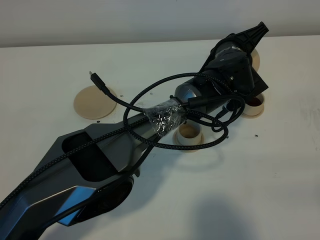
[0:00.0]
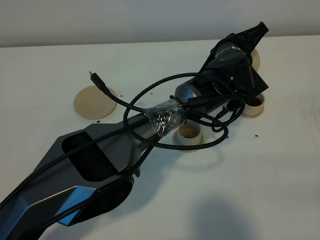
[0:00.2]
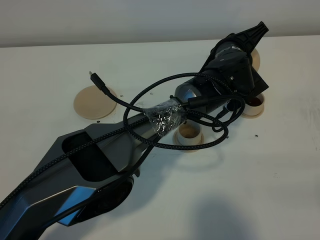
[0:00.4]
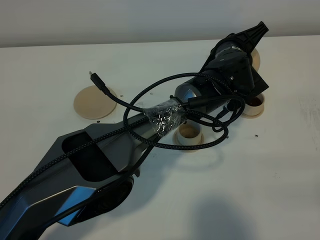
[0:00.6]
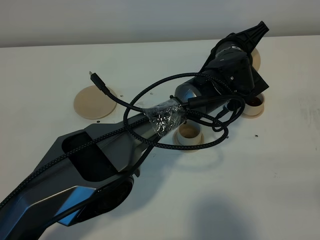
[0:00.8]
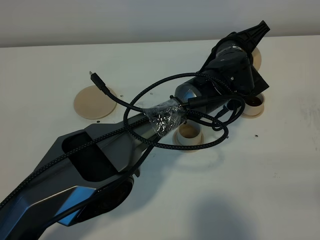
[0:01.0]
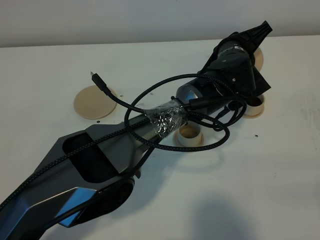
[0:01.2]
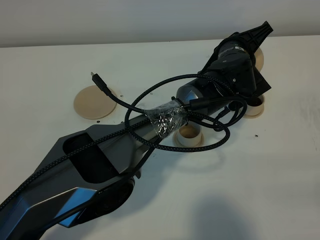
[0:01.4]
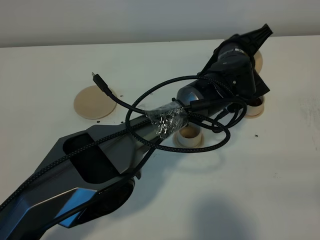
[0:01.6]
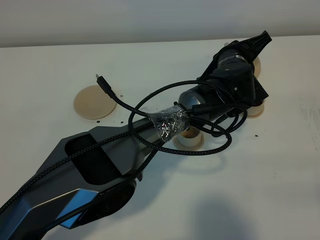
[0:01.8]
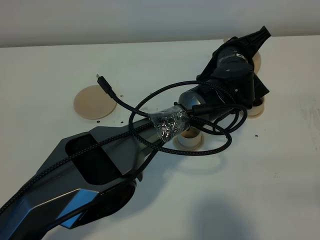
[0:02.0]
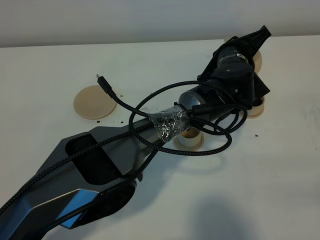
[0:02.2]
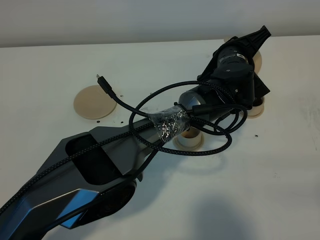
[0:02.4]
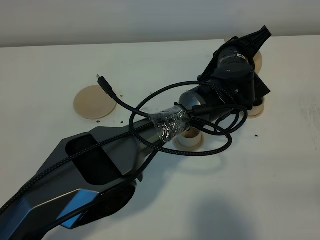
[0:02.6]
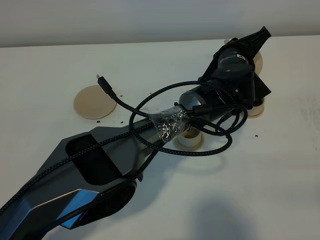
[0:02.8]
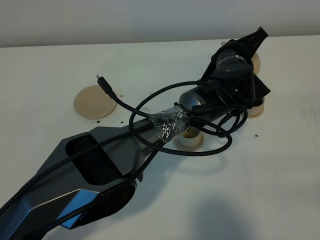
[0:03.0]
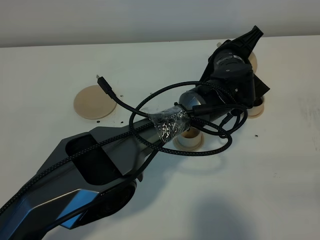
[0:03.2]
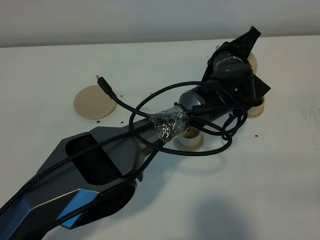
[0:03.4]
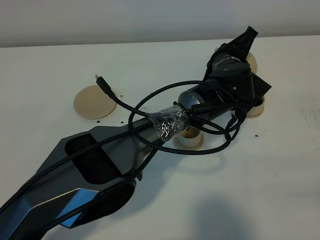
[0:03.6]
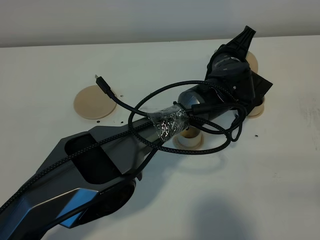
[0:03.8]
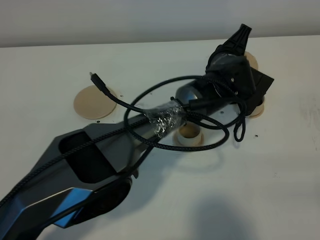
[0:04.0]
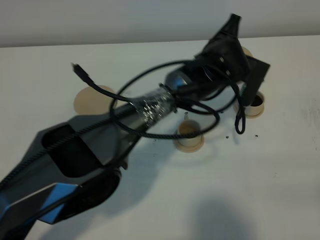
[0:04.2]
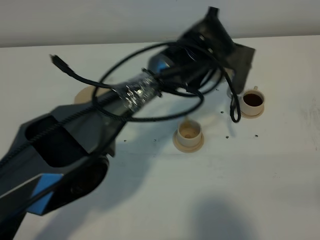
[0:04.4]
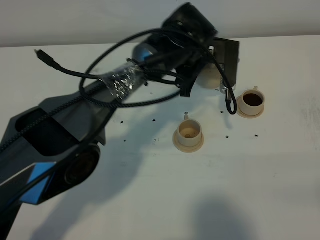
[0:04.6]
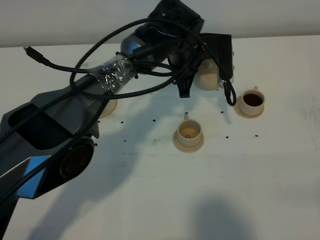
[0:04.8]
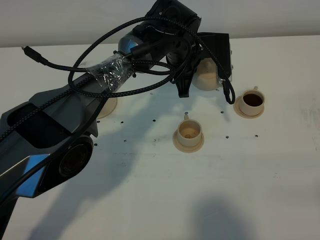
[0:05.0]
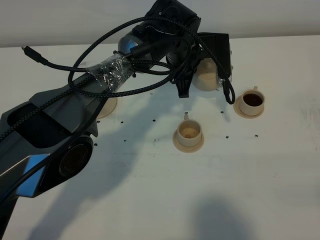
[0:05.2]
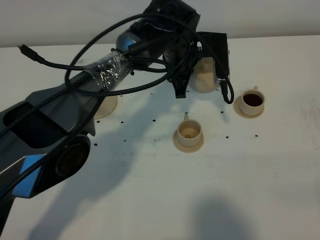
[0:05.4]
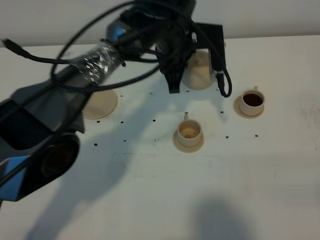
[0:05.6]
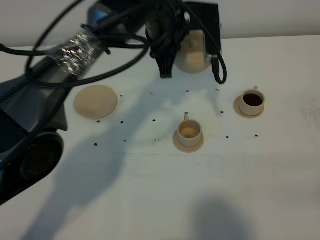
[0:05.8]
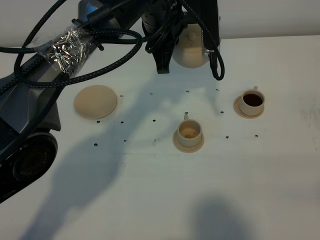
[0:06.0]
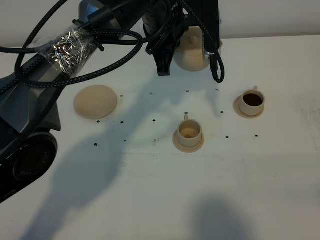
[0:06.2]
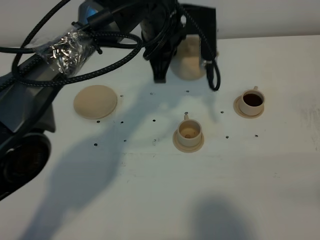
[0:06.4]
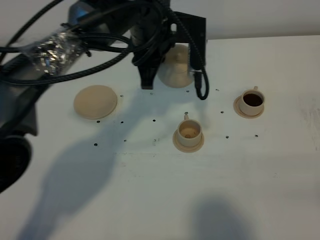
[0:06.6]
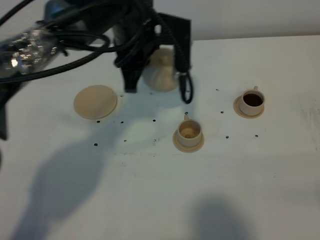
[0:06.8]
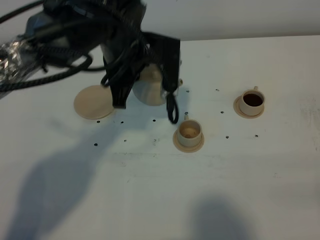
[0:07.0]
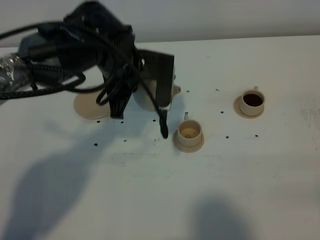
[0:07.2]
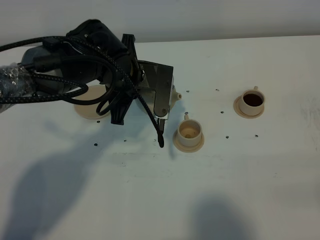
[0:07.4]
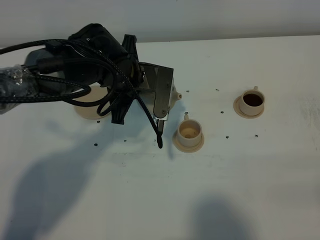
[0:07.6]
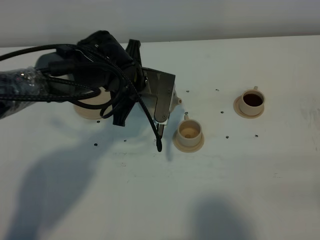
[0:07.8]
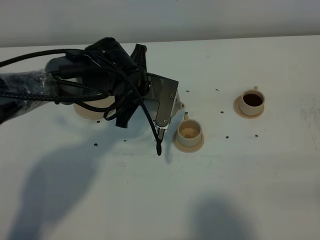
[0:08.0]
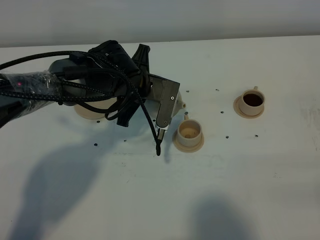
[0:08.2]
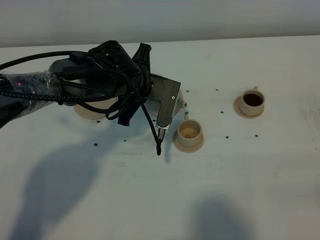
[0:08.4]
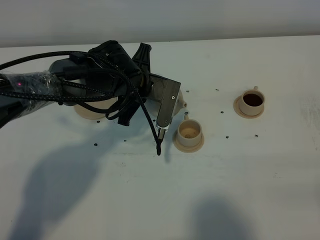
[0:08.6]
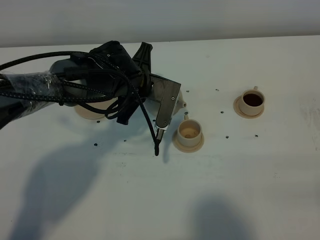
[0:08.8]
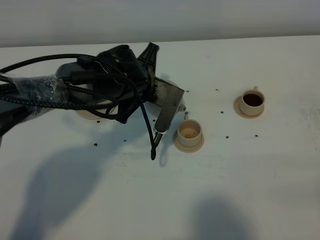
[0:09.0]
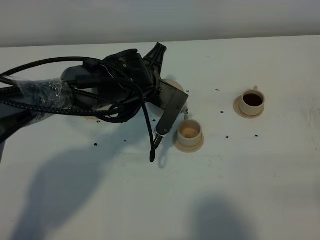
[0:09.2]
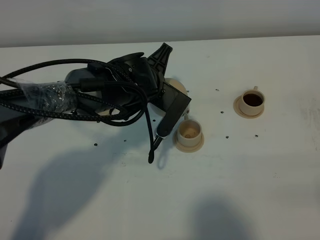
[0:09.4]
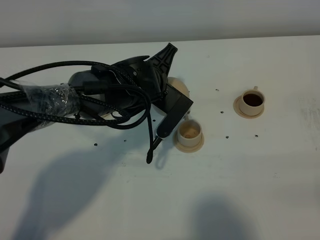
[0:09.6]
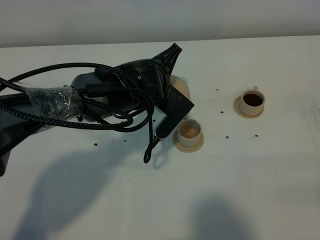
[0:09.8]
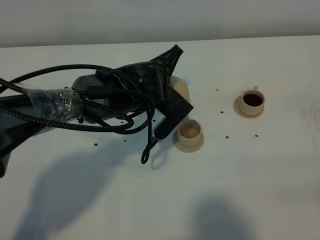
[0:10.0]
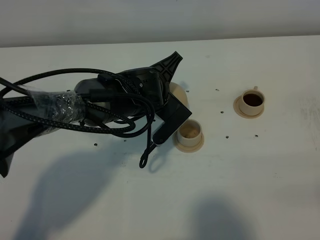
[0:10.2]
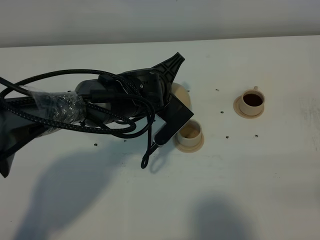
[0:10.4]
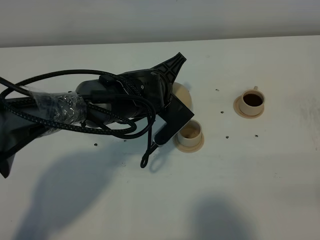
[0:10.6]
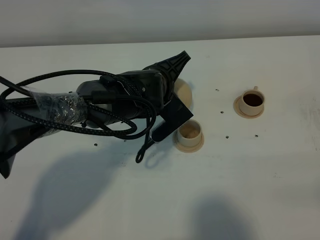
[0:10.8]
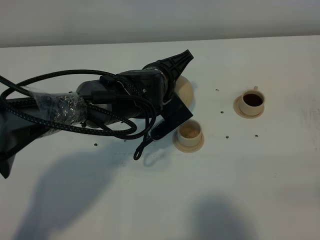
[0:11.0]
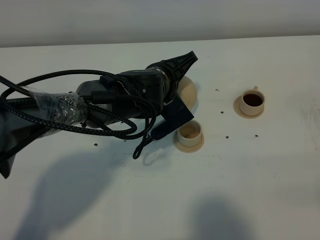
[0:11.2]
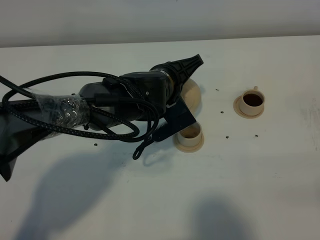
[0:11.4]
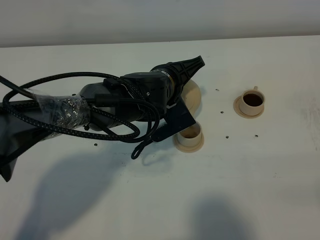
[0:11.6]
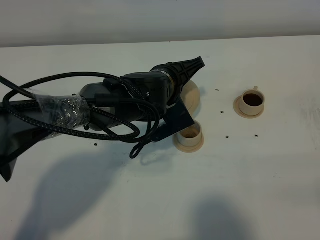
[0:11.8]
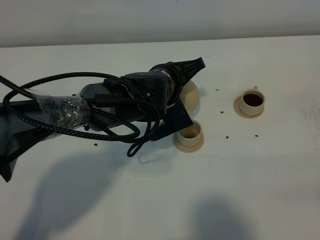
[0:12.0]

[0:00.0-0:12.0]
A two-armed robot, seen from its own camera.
Task of the whole recording: grasp the brown teapot and pour the tea into the two brown teacups one by one, put the brown teapot back in its original place.
Step, 0:00.0 to 0:03.4: Pour tea into the teacup with the left gripper.
0:00.0 to 0:01.6: Both grippers stay about where they are.
0:01.6 to 0:03.0: There are only small adjustments of the grippers.
0:03.0 to 0:04.4: The left gripper moves to the left, about 5 cm.
0:04.4 to 0:06.0: The left gripper goes approximately 10 cm upward and to the left.
0:06.0 to 0:07.6: The left gripper moves downward, to the left and backward, approximately 10 cm.
0:07.6 to 0:09.0: The grippers stay close to where they were, moving slightly.

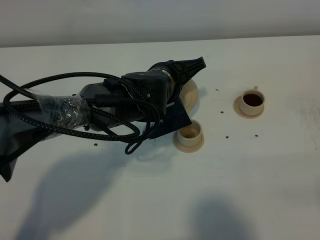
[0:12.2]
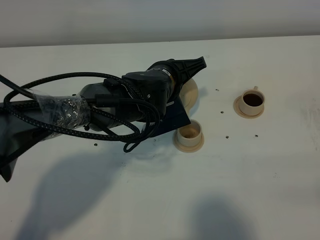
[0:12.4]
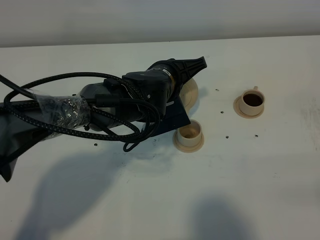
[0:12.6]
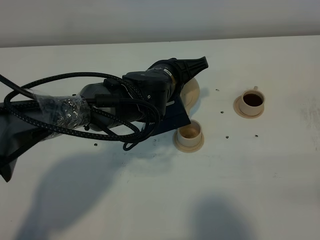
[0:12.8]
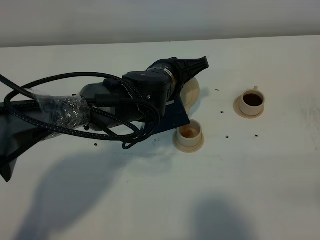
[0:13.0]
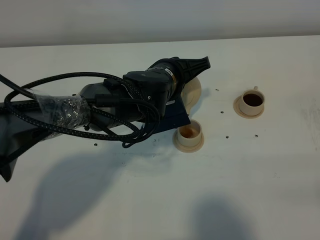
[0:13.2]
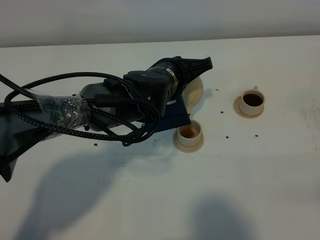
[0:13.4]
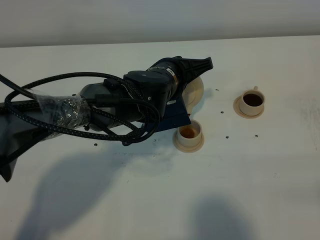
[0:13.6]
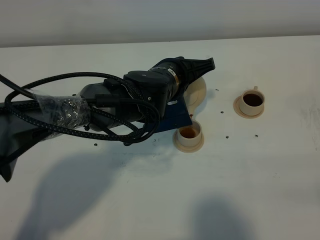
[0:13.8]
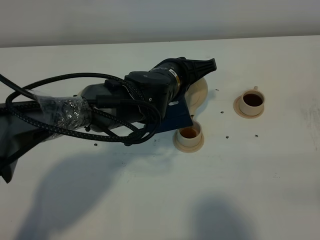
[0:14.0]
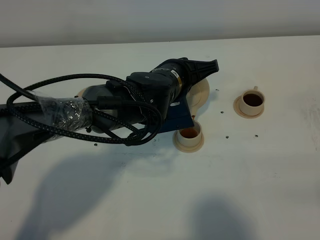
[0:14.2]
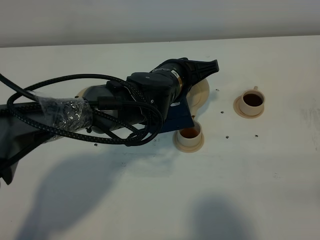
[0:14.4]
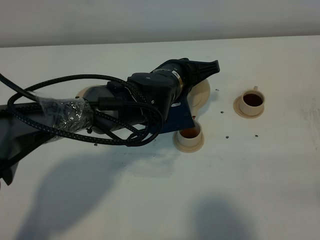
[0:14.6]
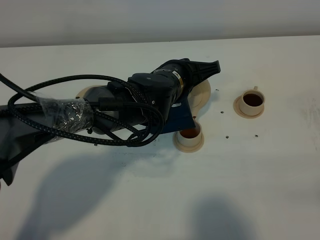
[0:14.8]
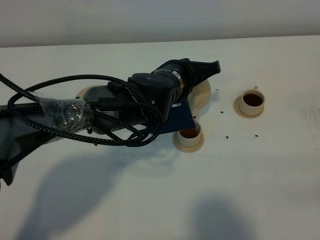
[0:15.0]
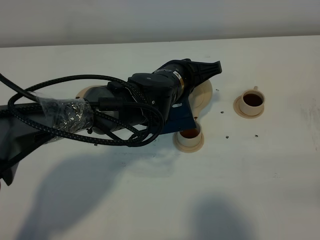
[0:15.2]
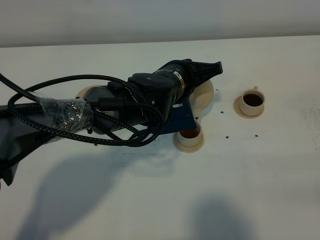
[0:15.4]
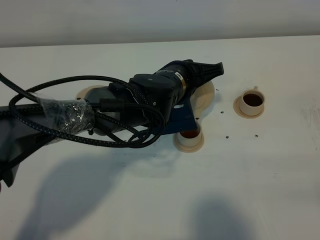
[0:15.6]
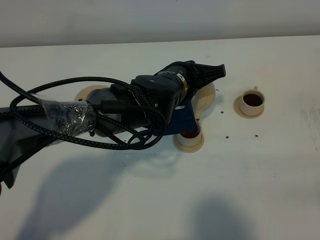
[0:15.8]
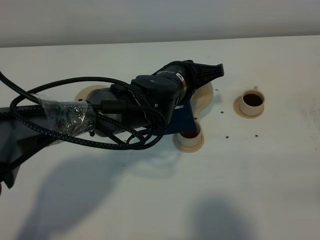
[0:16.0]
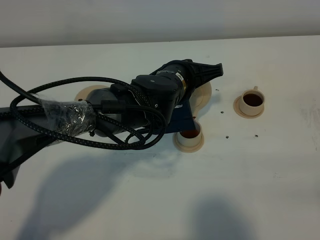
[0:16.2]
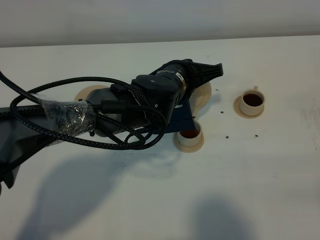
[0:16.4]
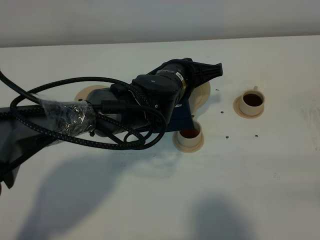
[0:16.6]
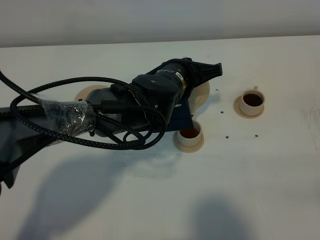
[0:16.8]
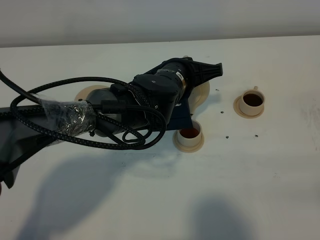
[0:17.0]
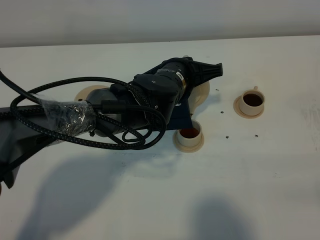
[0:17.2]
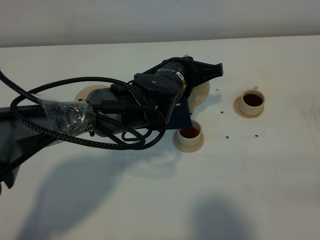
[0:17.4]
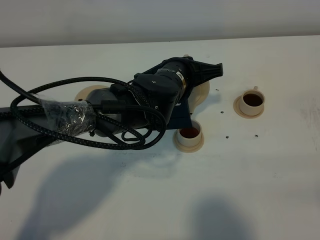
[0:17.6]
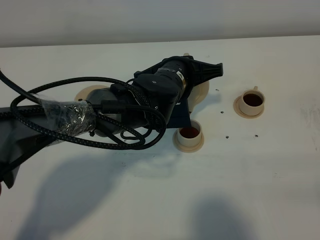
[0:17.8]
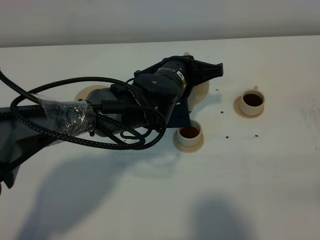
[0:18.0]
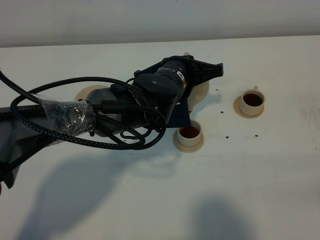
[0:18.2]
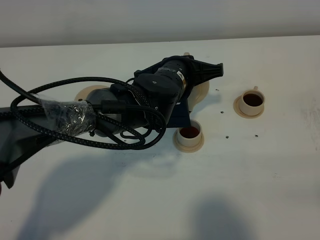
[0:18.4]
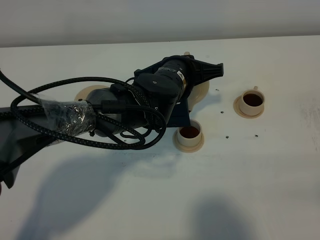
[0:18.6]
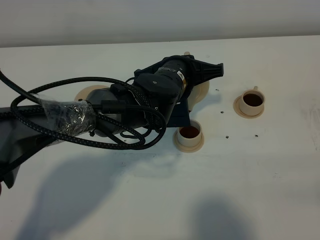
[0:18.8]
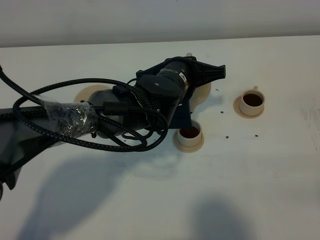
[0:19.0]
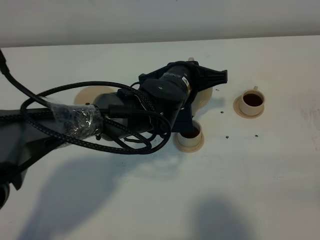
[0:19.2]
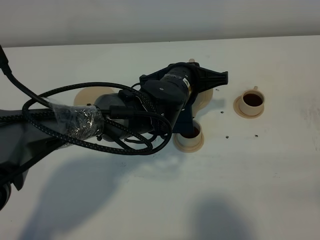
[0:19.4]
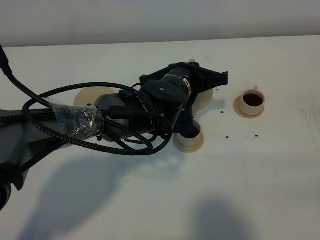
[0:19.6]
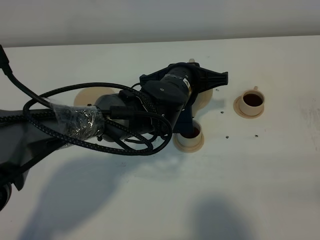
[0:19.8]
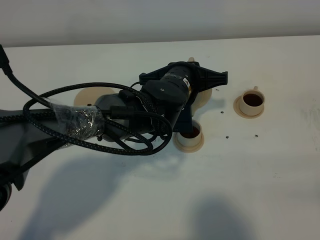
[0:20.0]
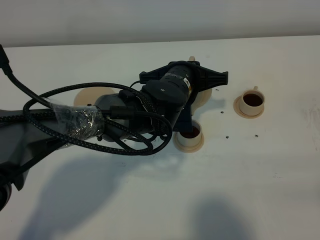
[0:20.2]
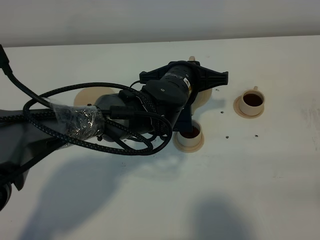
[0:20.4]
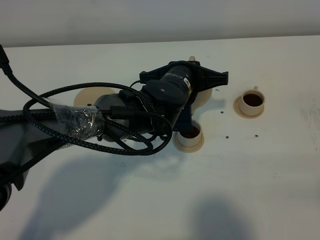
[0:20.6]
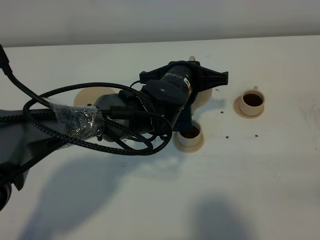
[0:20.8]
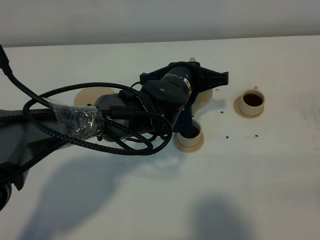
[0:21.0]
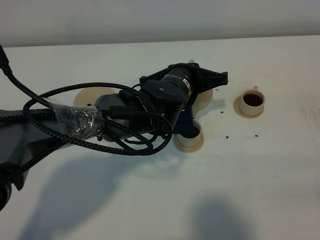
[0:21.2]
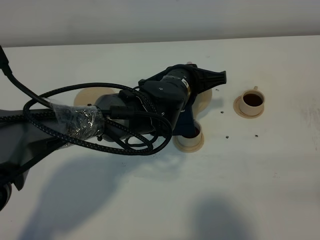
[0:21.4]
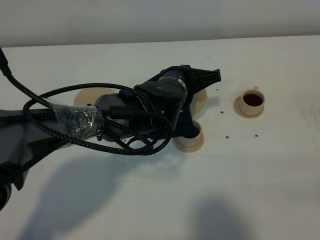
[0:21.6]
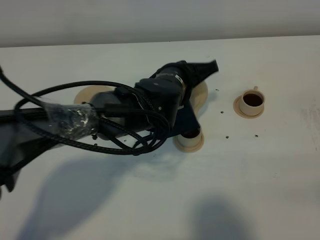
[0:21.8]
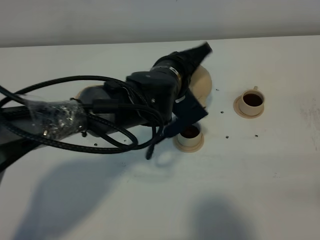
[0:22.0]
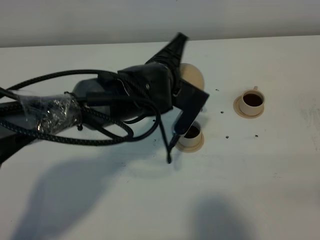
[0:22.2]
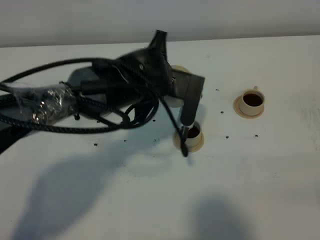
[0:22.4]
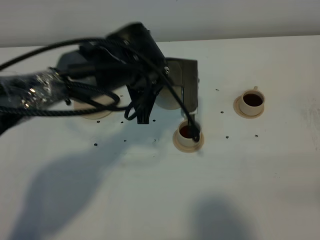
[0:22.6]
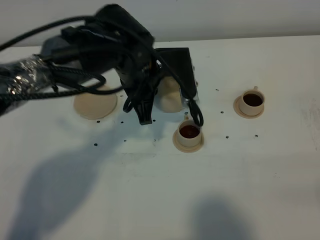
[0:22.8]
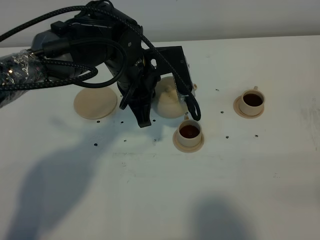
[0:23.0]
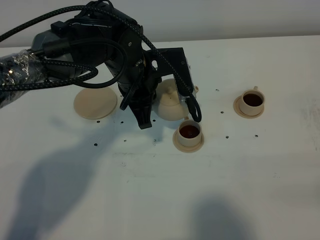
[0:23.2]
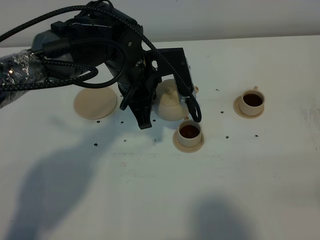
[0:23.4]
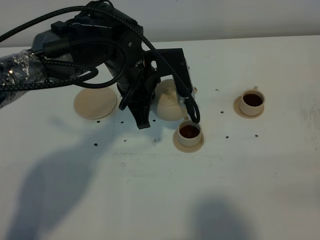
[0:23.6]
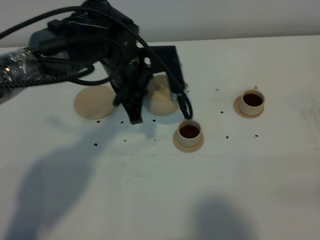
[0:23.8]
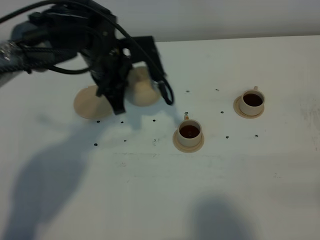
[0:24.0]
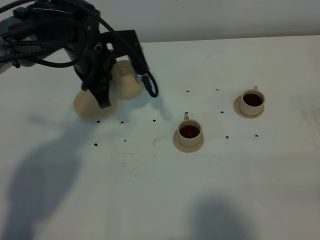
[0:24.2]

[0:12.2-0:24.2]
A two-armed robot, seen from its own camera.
Task of the whole recording: grasp the brown teapot and pour the tea into the two brown teacups one by one, put the brown teapot back in its original place.
Step, 0:12.2 to 0:22.0: Pour tea into the teacup with the left gripper.
0:12.2 to 0:13.8: There are only small adjustments of the grippers.
0:13.8 to 0:15.2: Neither gripper changes place.
0:15.2 to 0:19.8: The grippers move only a little.
0:19.8 to 0:21.2: Both grippers stay about where they are.
0:21.2 to 0:22.6: The left gripper shifts roughly 10 cm to the left and upward.
0:22.6 to 0:24.2: The left gripper heads to the left and forward, covering some 10 cm.
